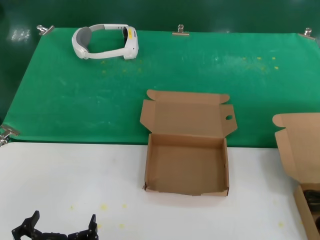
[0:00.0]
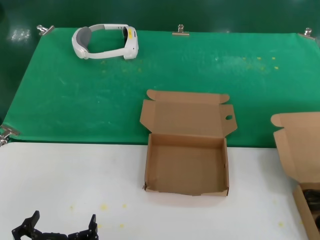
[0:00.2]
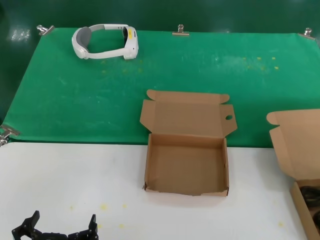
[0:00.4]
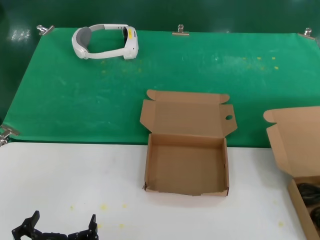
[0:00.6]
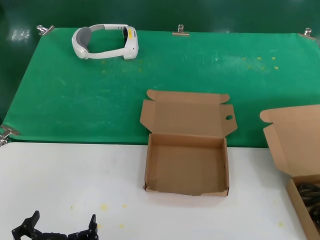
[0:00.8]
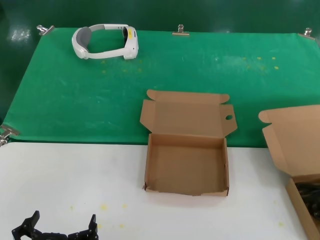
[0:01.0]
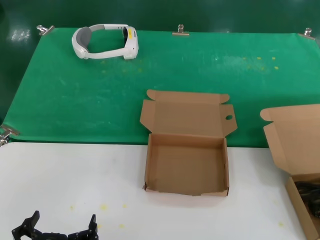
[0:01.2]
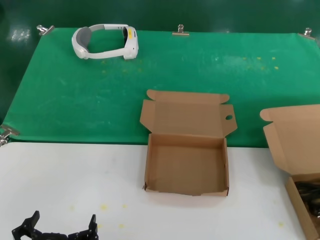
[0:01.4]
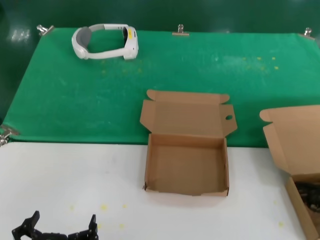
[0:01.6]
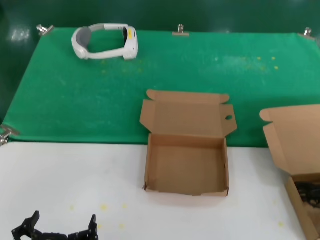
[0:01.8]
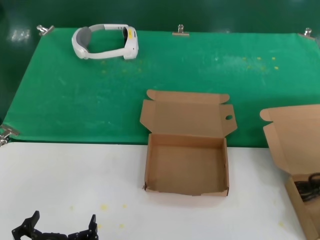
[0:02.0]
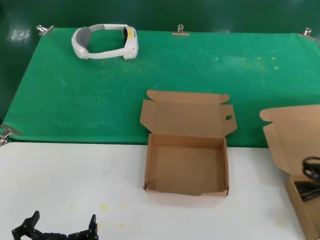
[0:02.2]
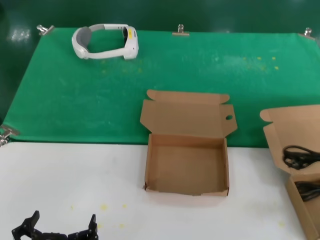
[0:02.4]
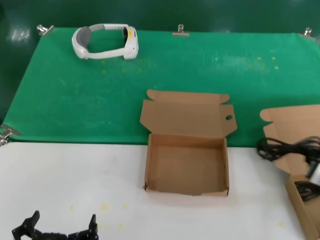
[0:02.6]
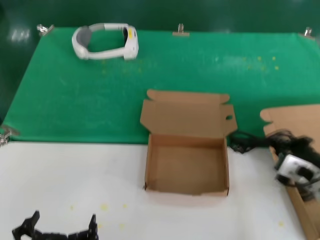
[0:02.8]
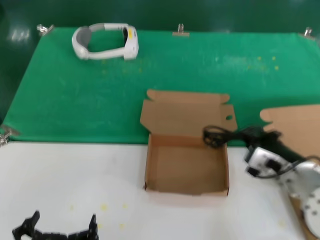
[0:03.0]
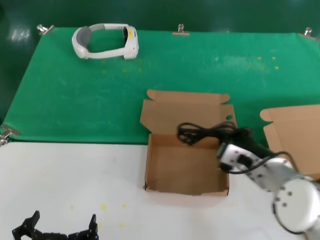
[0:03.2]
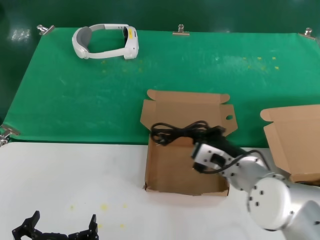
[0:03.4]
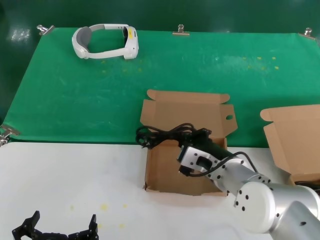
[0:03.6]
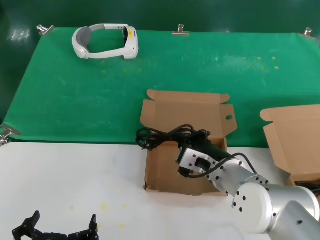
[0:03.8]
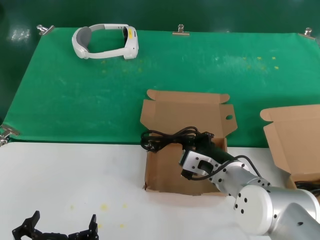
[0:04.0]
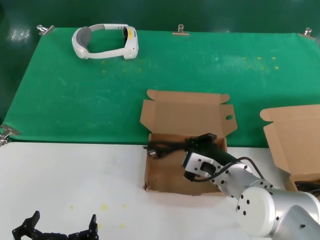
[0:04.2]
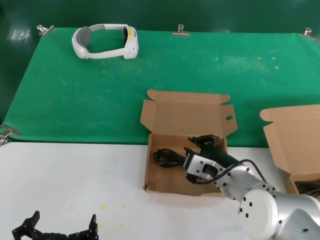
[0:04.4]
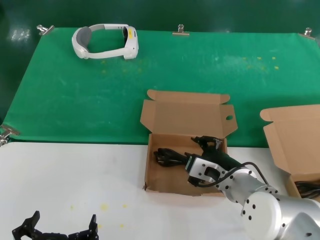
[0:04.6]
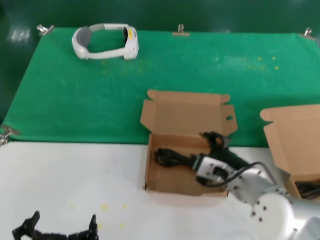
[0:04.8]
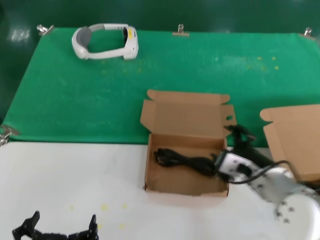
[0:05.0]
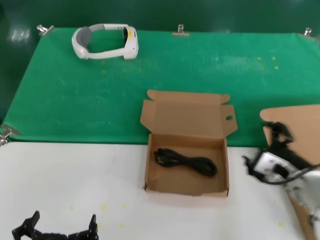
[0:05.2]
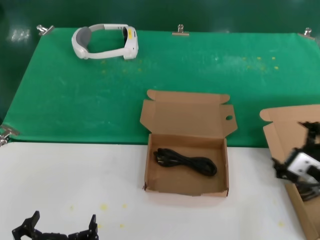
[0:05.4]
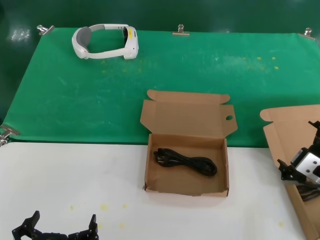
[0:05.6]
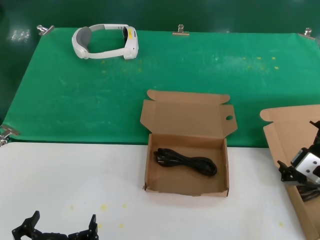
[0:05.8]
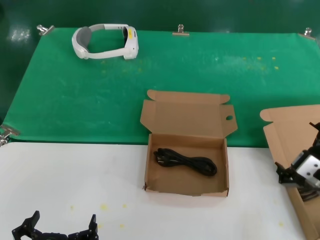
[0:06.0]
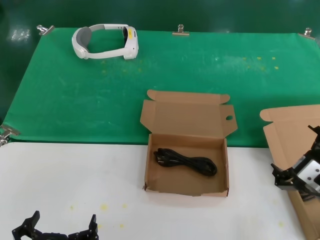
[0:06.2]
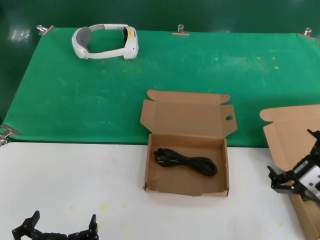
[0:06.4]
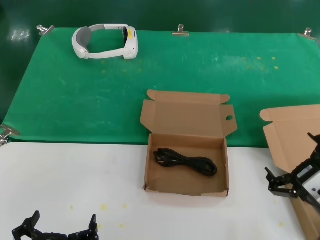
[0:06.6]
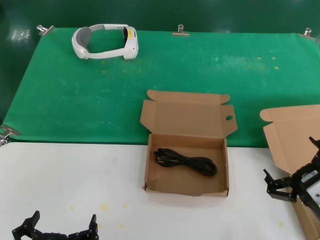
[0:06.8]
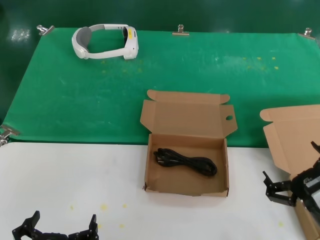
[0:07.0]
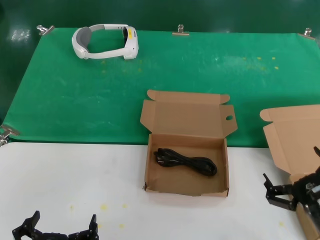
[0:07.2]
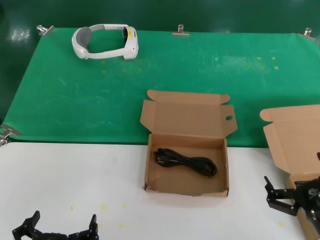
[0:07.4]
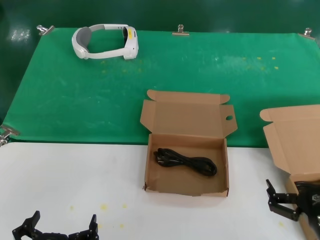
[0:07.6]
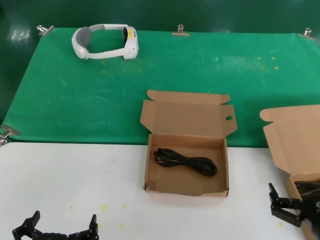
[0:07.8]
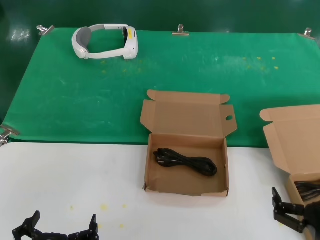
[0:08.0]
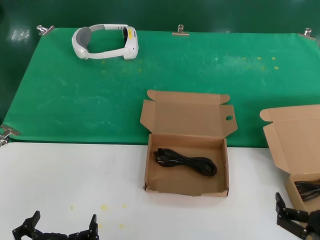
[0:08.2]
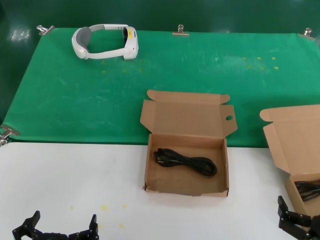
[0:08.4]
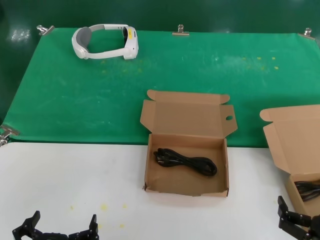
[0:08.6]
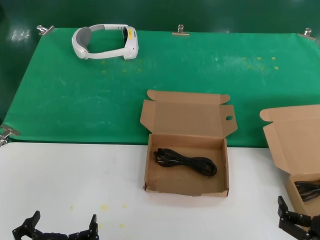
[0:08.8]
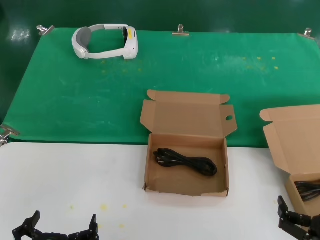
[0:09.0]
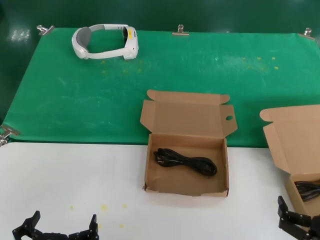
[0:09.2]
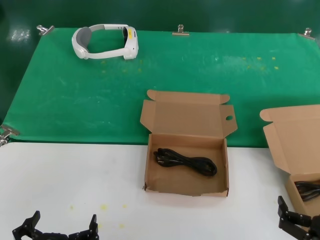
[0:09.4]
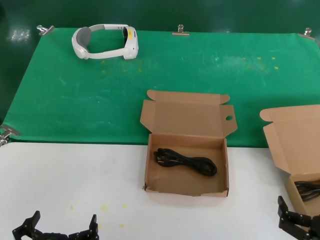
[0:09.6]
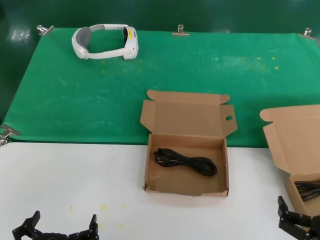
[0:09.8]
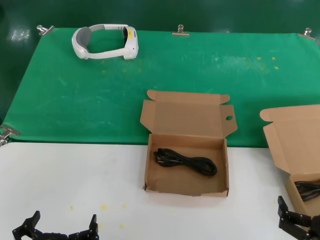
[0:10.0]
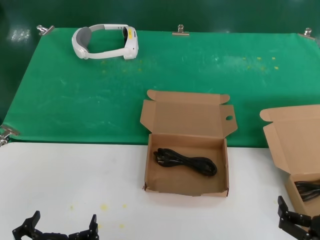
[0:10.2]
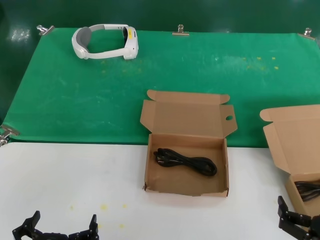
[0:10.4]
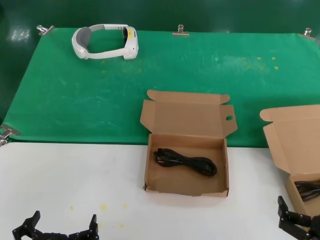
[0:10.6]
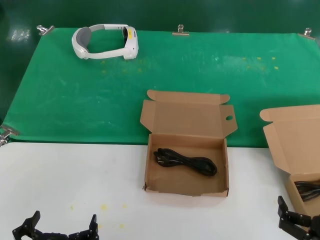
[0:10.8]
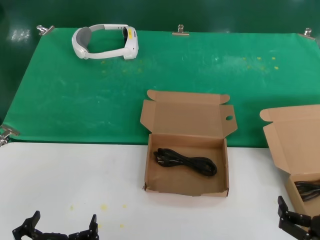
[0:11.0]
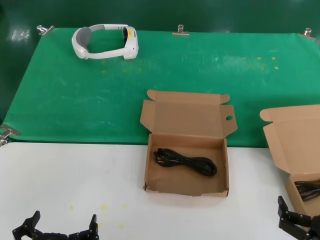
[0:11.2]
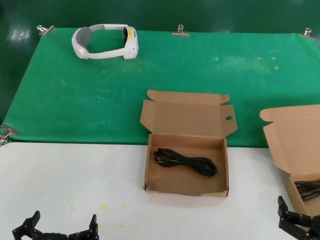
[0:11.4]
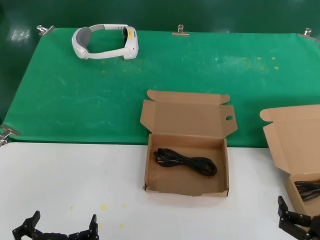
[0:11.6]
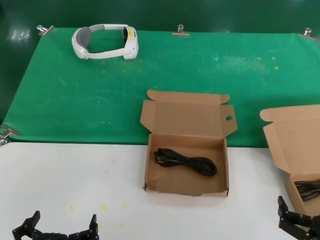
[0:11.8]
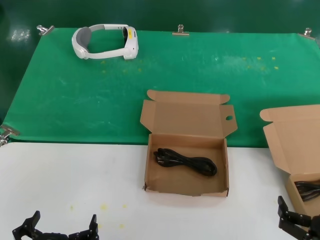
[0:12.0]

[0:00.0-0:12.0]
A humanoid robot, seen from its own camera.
Task of the whole recording: take the parts from the box containing them and put them into an empty box.
Step, 0:01.2 to 0:04.8: Place the data cable in the another box.
0:00.0 to 0:01.6: There are only small adjustments of the hands.
0:01.6 to 0:03.0: The right hand is displaced to the left by about 20 cm.
0:03.0 to 0:04.4: The right hand heads to the left, covering about 10 cm.
0:04.4 to 0:06.0: The right hand moves to the right and backward, some 20 cm.
0:06.0 to 0:07.6: The right hand goes about 10 cm backward and downward.
0:07.6 to 0:09.0: The right hand changes place by some 5 cm.
0:09.0 to 0:12.0: Neither hand changes place.

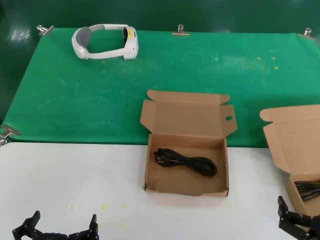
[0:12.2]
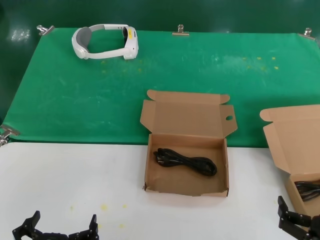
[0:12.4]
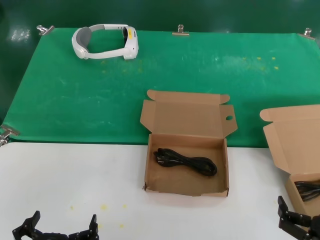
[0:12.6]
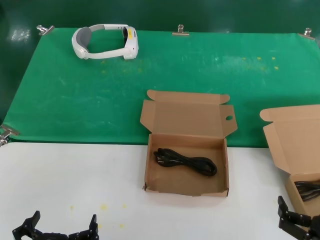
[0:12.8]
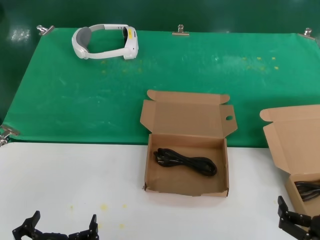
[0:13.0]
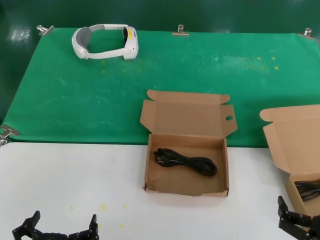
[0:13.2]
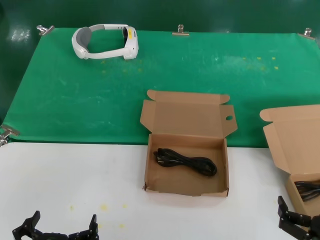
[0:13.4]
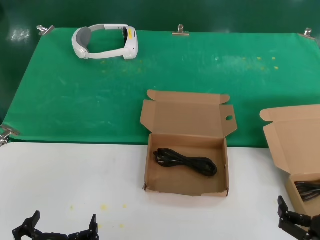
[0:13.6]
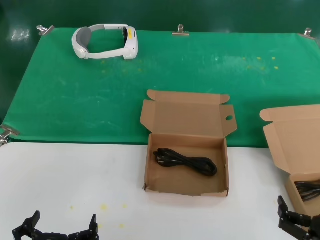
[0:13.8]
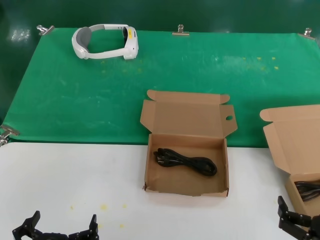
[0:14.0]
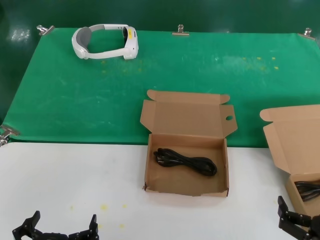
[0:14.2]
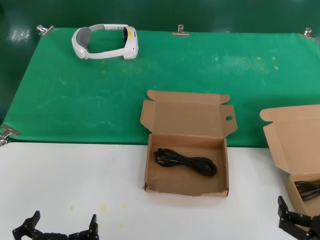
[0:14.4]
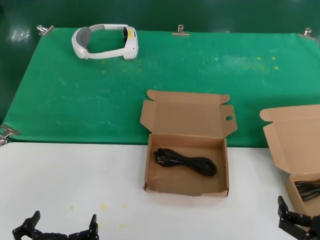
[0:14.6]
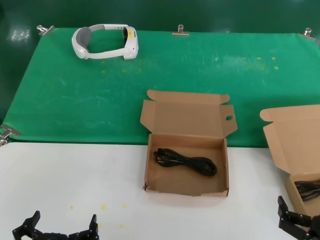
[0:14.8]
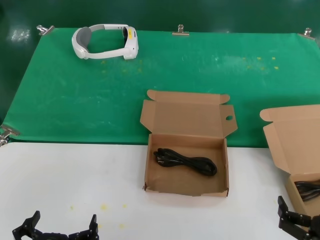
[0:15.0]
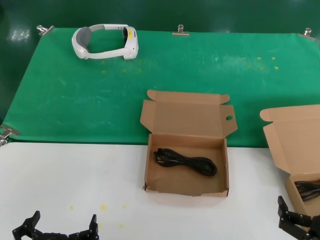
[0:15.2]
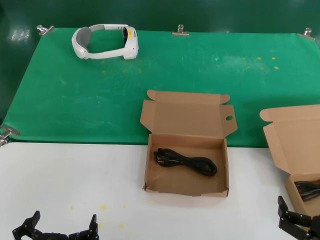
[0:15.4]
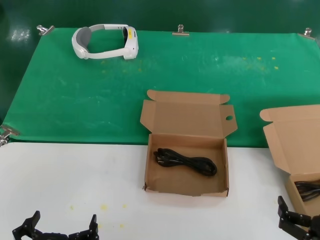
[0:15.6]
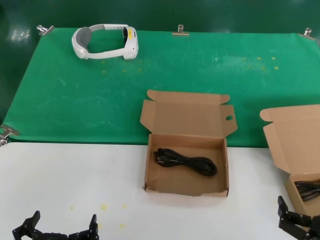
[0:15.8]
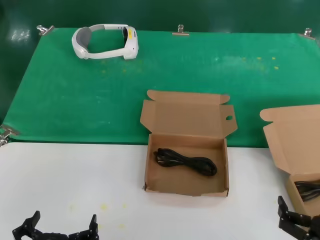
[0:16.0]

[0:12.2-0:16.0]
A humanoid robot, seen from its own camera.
Task of the whole recording: take the parts from the box containing them and put them into an empty box.
0:12.2 to 0:16.0: Both hands stay about where they are.
